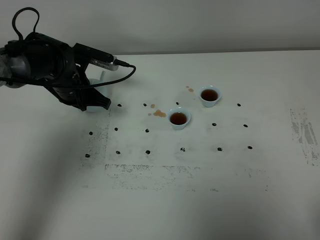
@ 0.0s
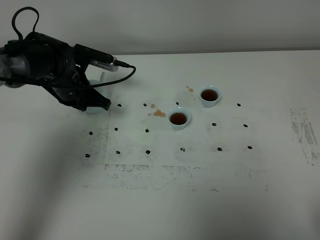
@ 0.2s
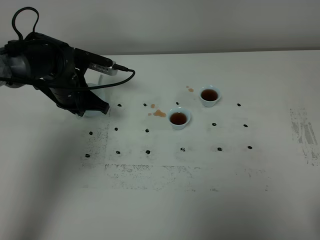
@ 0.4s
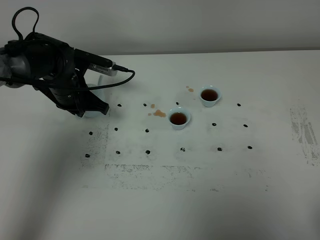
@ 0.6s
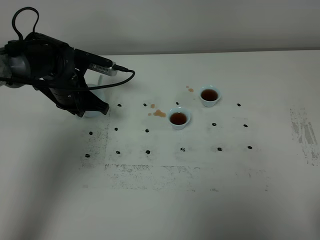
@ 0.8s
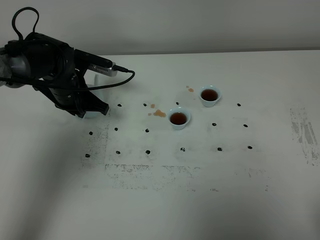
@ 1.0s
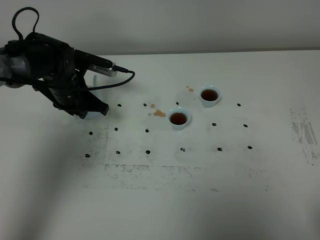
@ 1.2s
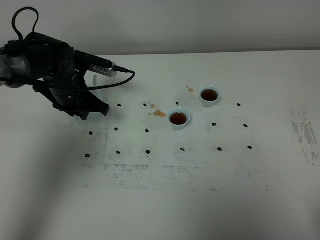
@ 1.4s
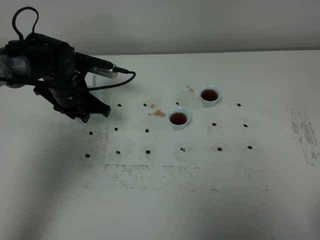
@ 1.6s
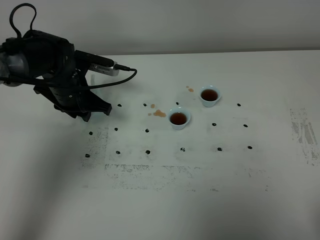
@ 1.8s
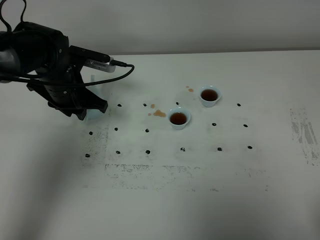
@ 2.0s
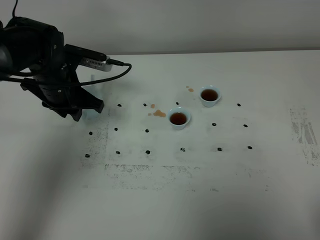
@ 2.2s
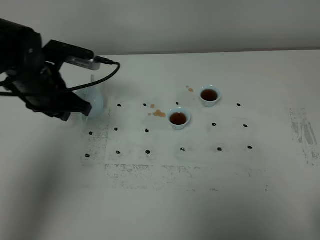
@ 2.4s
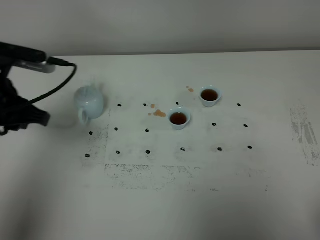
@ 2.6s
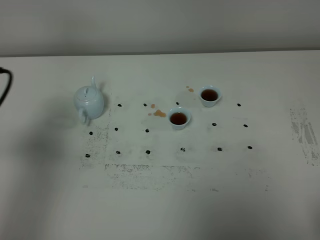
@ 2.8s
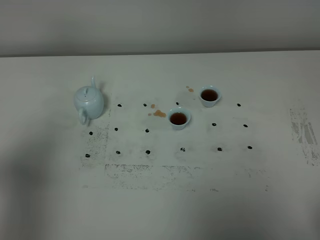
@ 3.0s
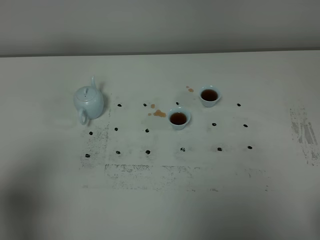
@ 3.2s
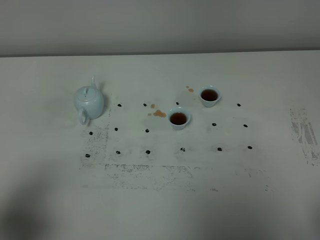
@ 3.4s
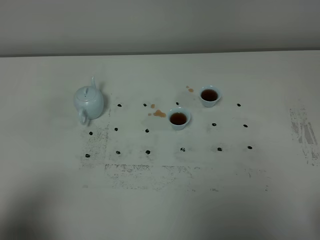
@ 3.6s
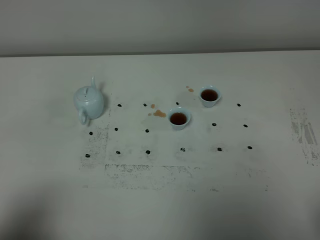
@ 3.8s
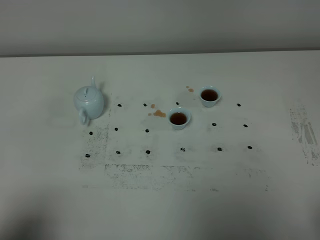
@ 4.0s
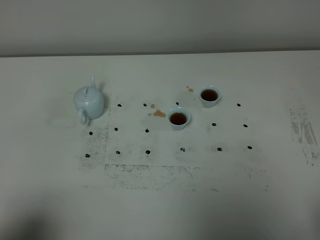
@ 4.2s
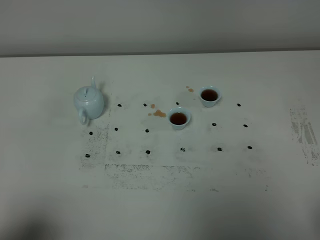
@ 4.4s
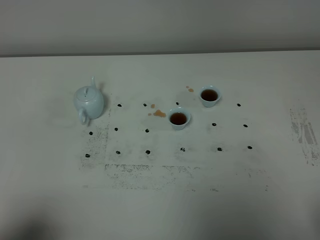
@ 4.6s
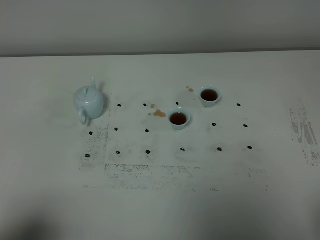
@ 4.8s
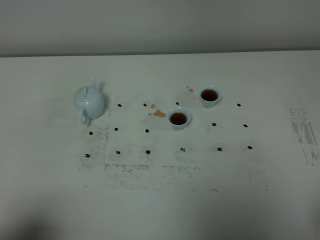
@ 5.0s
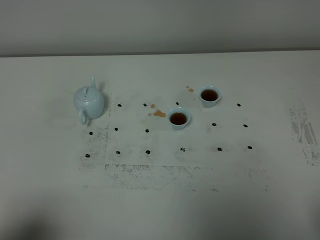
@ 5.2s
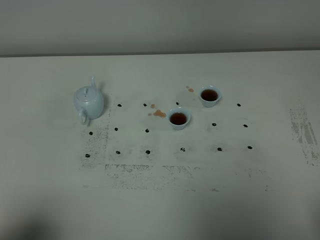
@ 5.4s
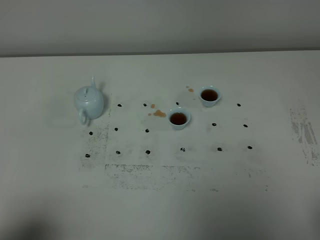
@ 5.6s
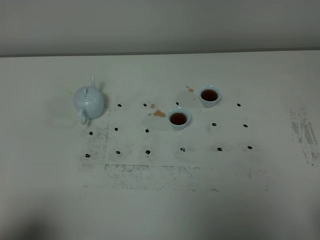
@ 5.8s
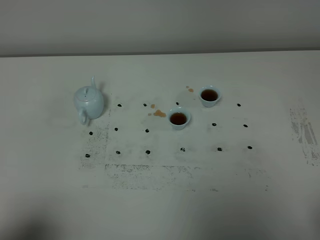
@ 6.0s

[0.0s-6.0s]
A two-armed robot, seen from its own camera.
Task of the whole recording: grasp the blue porcelain teapot and pour the tea into the two blue porcelain teacups one by one, put the blue porcelain teapot back in its original place.
0.0s to 1.6s: The left gripper opens.
1.6s to 3.0s: The left gripper goes roughly 35 cm backward, upward and to the left.
3.0s to 4.4s: The left gripper goes roughly 15 cm backward and downward.
4.4s to 6.0s: The two grippers keep their place.

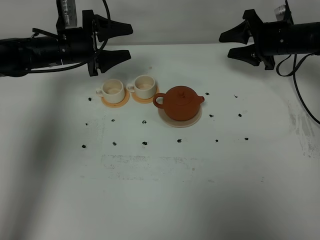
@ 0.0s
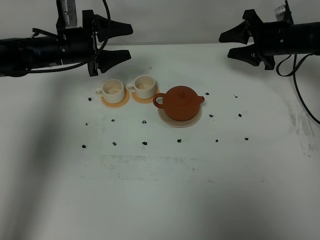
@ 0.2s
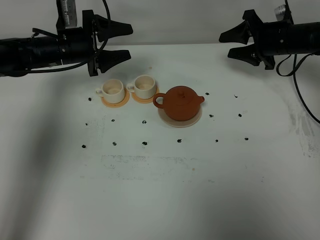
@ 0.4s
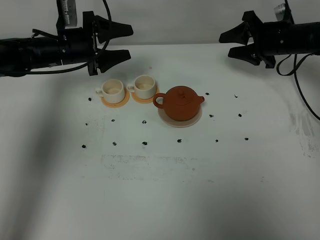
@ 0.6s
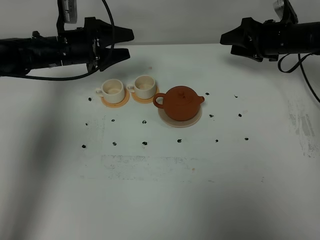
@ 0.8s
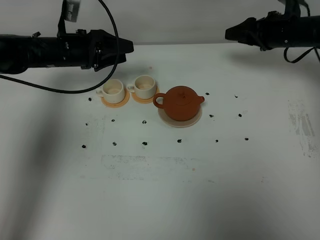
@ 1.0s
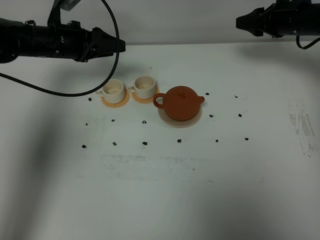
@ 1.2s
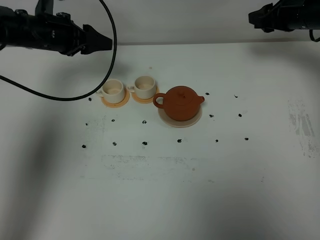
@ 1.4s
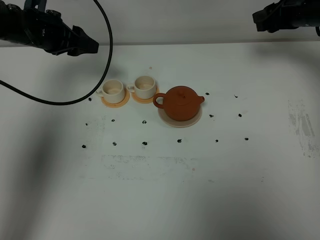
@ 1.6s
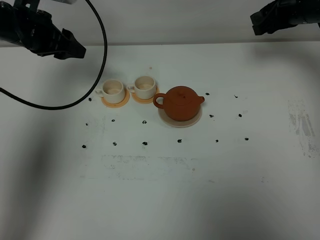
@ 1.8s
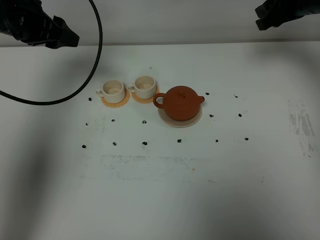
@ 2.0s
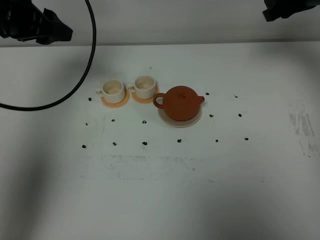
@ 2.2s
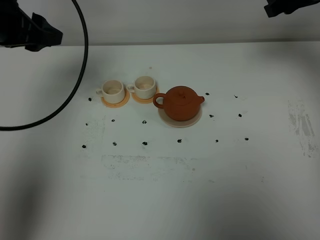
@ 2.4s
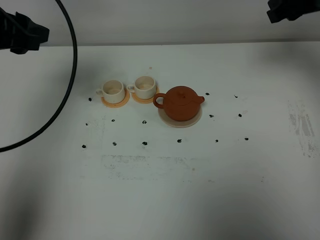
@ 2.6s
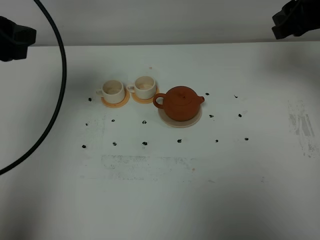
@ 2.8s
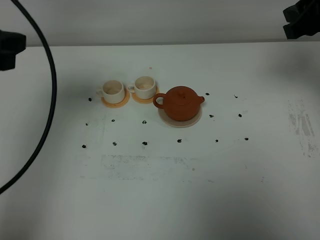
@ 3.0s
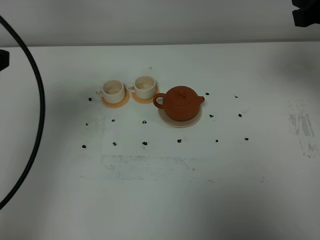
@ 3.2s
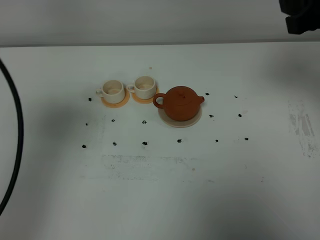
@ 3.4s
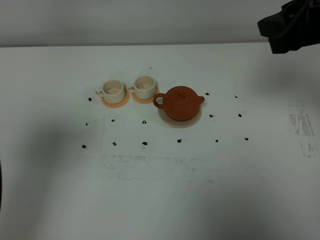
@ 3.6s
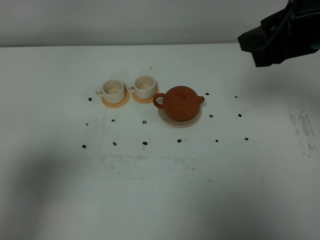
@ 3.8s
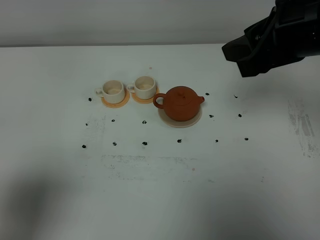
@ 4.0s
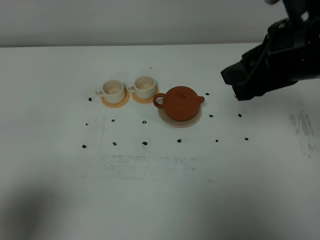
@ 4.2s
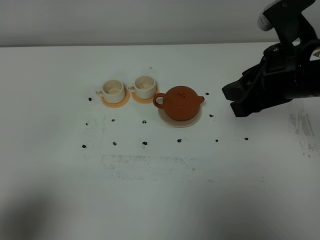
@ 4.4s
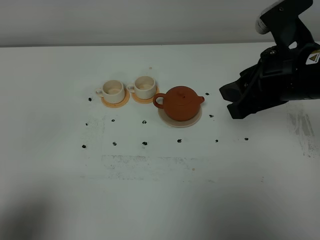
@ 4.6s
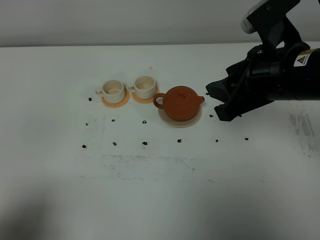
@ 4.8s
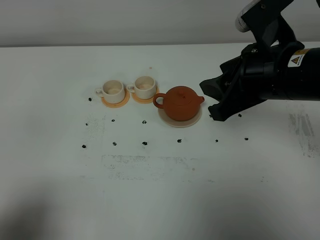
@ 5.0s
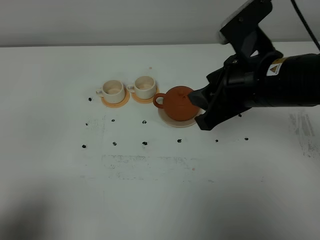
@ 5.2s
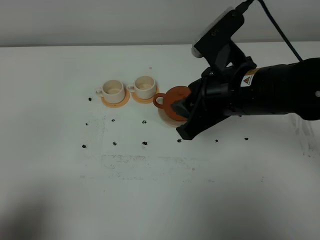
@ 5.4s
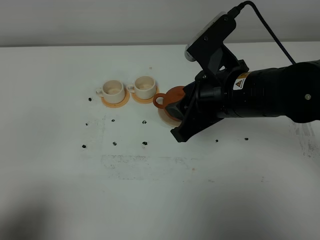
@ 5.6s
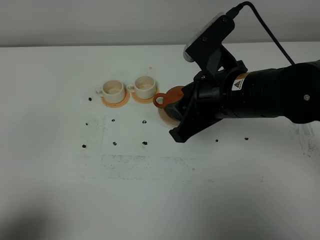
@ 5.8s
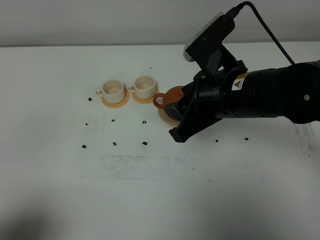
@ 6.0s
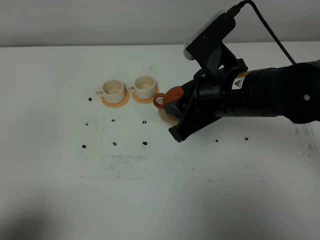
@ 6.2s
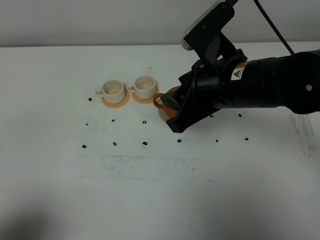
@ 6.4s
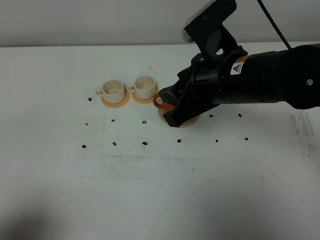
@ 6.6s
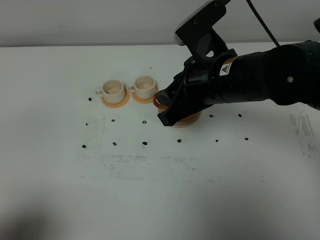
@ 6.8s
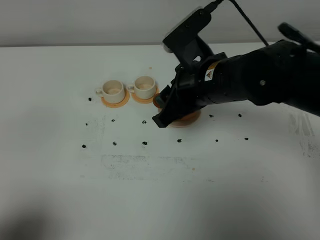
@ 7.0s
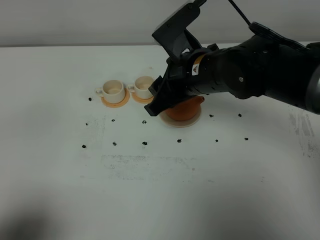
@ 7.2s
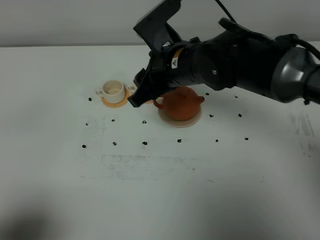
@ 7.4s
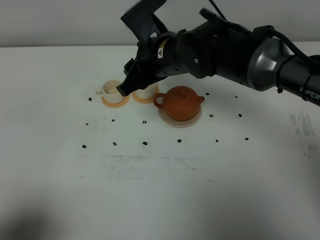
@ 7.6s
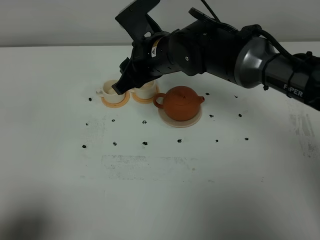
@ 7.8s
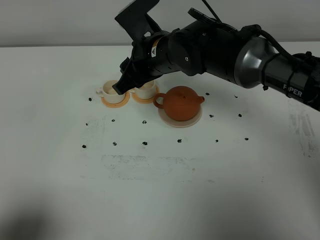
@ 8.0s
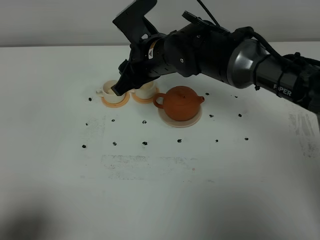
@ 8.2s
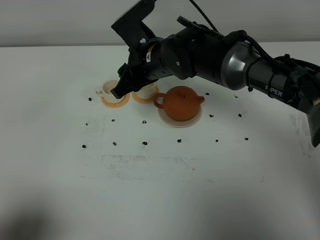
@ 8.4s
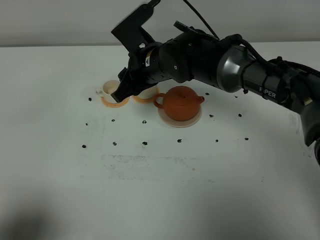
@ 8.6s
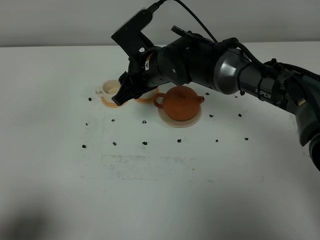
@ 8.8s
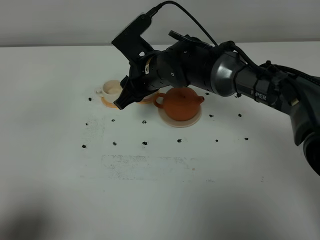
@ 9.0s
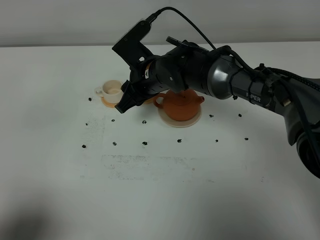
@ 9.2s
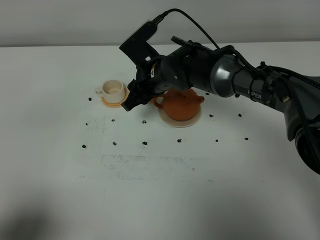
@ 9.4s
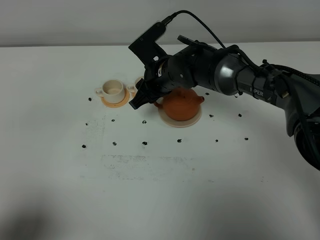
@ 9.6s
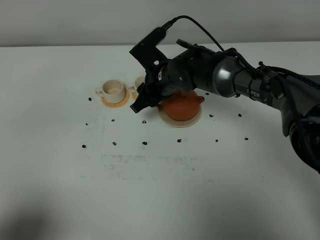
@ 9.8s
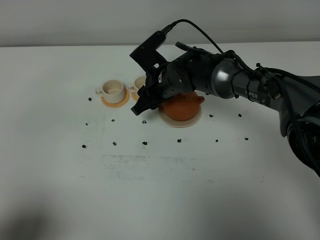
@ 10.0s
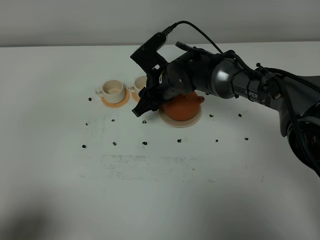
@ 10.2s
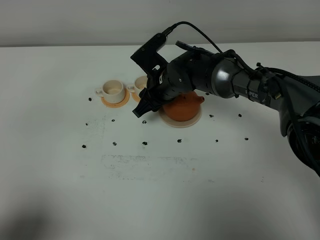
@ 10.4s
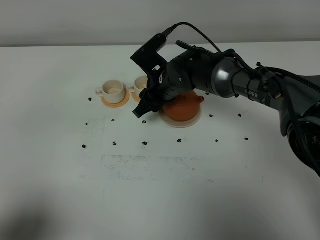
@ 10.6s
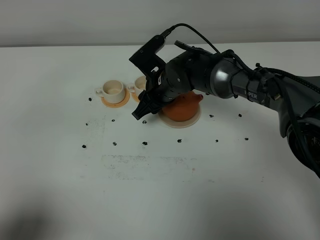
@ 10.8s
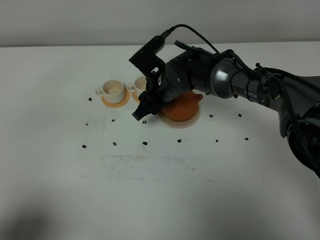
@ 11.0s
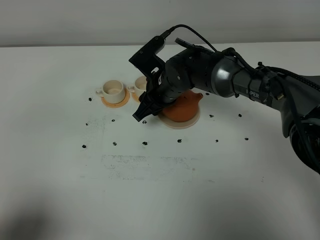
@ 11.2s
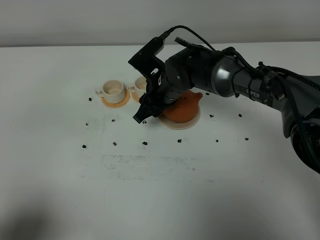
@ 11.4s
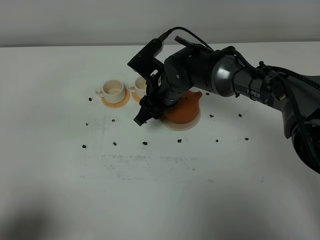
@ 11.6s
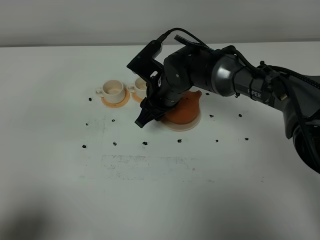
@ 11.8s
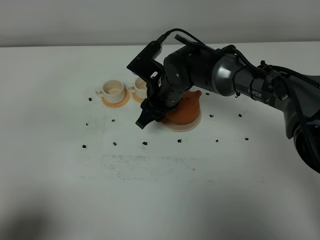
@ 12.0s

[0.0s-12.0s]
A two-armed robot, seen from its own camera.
Task of the whole recording: grasp the brown teapot and pour the tea into the two white teacups one by one, put the brown teapot back in its original place.
0.0s to 1.6s: The grippers both shift upward by approximately 5 cm.
1.6s to 3.0s: The two grippers go about 20 cm backward and upward.
3.0s to 4.4s: The left gripper shifts roughly 20 cm backward. The right gripper travels backward, to the left and downward by approximately 10 cm.
4.4s to 6.0s: The right gripper heads to the left, covering about 10 cm.
6.0s to 7.6s: The right gripper shifts some 15 cm forward and to the left.
7.6s to 9.0s: The right gripper shifts about 5 cm downward.
9.0s to 10.4s: The right gripper changes place by some 5 cm.
10.4s to 12.0s: The grippers stay close to where they were, moving slightly.

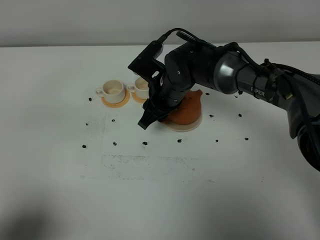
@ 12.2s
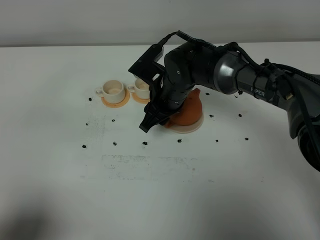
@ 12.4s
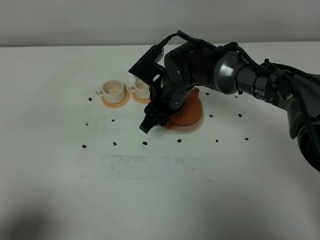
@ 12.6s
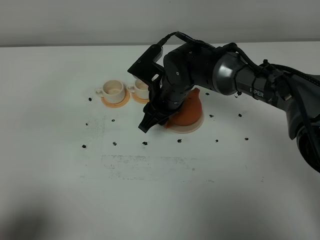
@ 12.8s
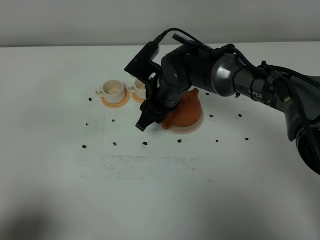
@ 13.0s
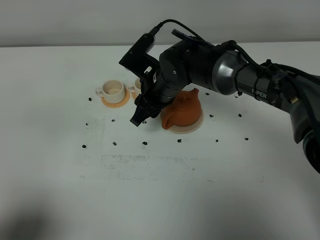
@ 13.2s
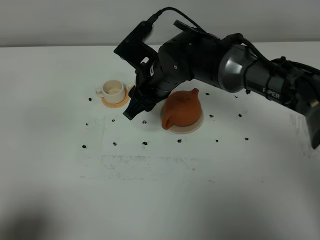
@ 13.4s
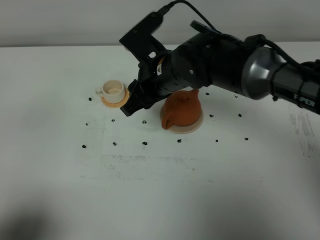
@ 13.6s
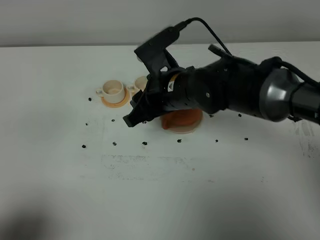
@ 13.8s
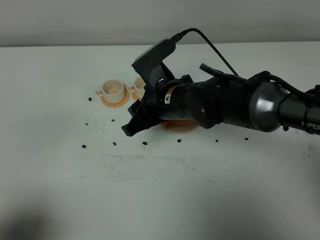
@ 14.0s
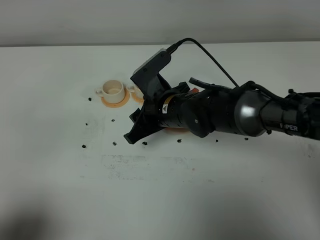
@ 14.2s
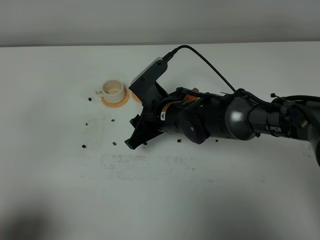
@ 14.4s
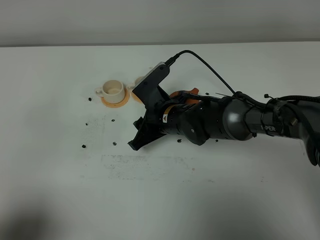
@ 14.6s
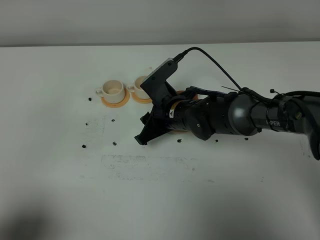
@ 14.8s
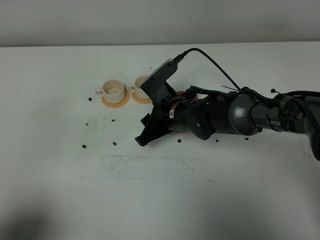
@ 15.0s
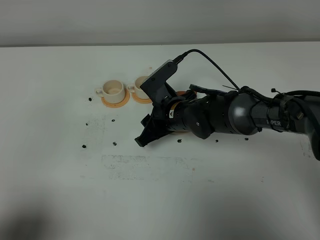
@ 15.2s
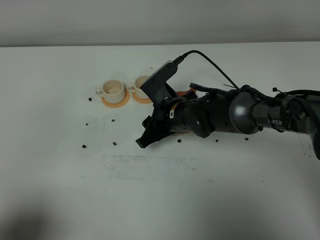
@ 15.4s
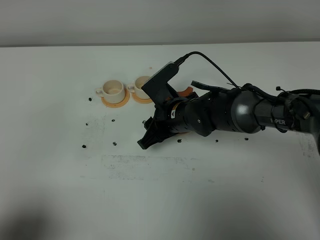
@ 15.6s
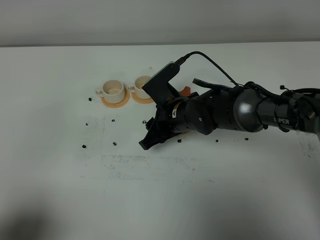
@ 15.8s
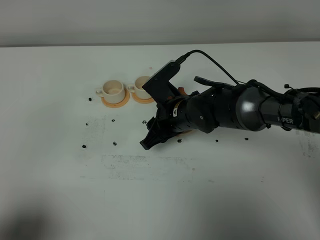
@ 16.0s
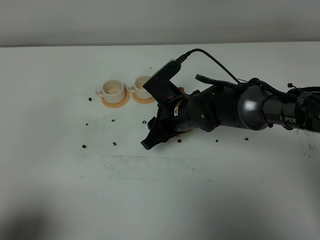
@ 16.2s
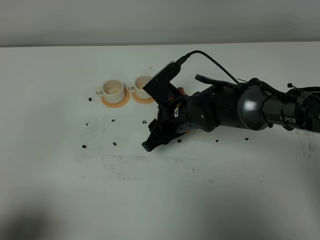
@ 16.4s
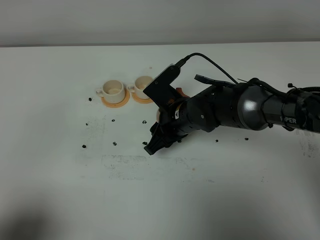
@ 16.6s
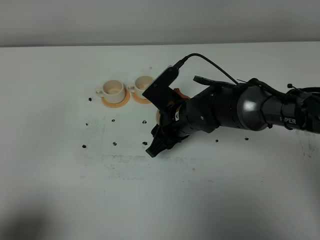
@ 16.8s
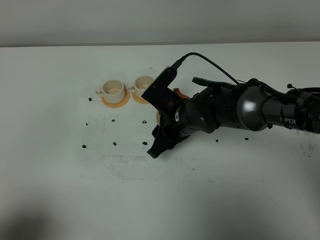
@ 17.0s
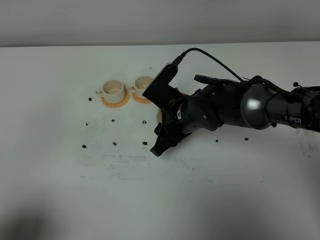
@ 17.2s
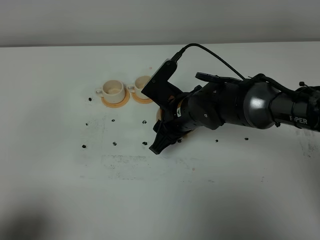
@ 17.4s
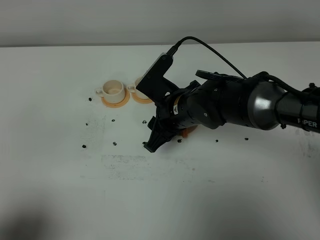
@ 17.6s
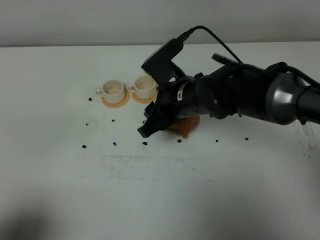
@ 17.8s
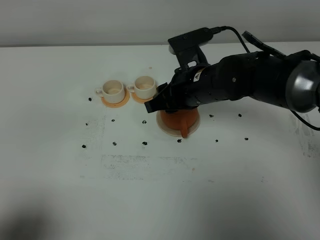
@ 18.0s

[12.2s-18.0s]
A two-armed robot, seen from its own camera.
Task of the whole recording: grasp the brown teapot and pour the tea into the two white teacups one by one, put the brown teapot back in its original place.
12.2s to 13.6s: The right gripper is displaced upward by about 5 cm.
13.6s to 15.0s: The right gripper travels downward by about 10 cm.
15.0s to 16.6s: The grippers stay close to where they were, moving slightly.
16.6s to 18.0s: The right gripper travels upward by about 10 cm.
